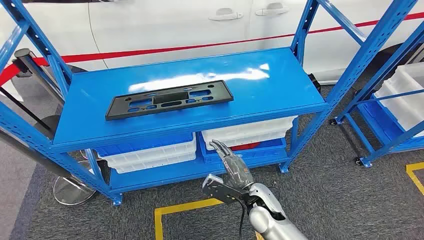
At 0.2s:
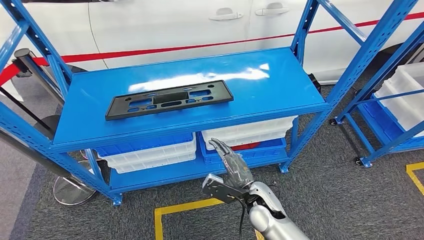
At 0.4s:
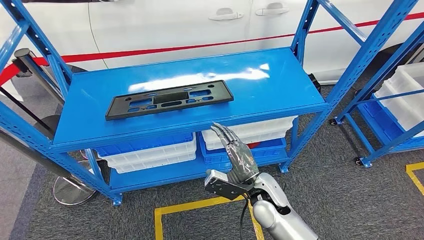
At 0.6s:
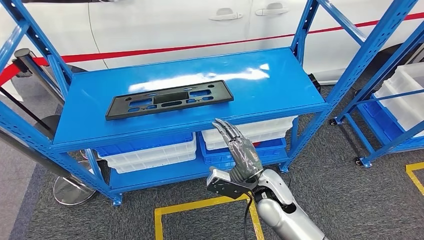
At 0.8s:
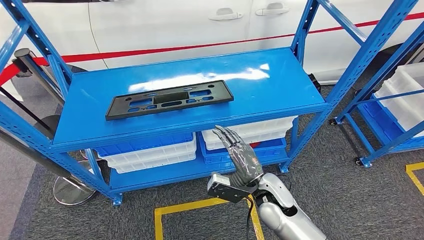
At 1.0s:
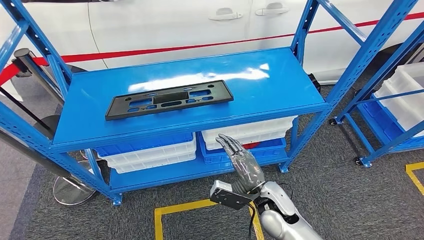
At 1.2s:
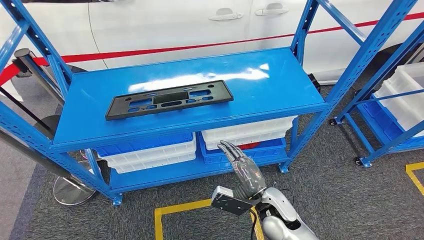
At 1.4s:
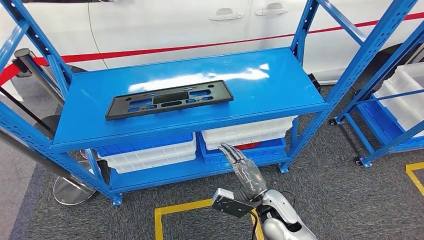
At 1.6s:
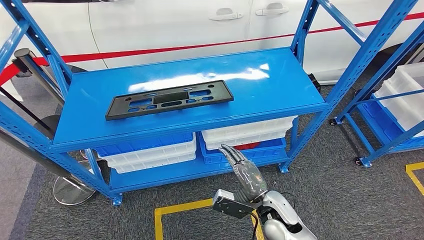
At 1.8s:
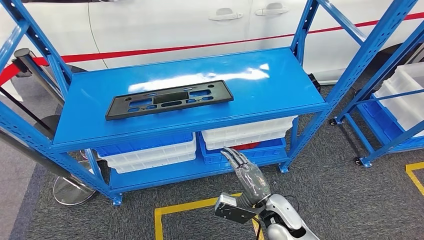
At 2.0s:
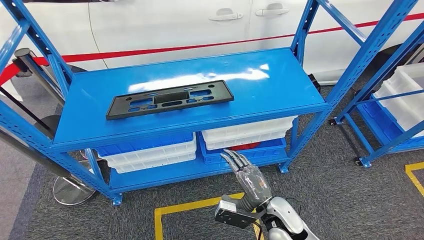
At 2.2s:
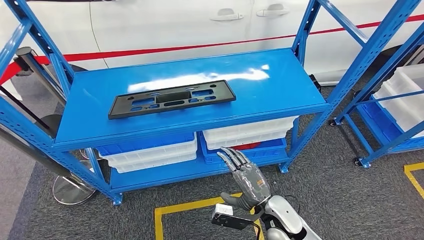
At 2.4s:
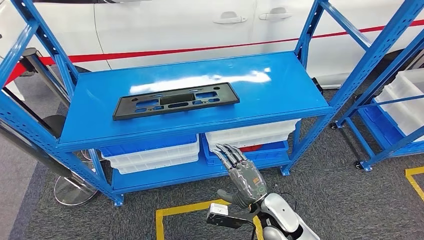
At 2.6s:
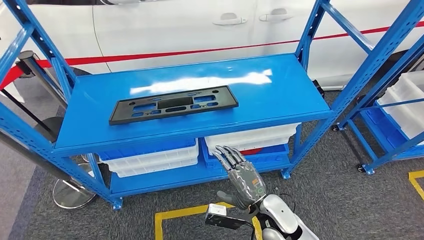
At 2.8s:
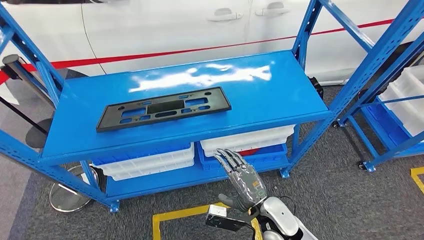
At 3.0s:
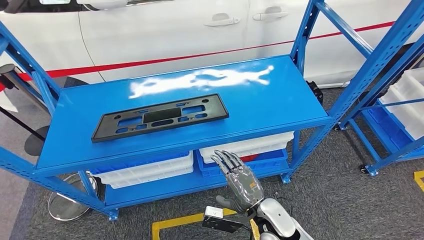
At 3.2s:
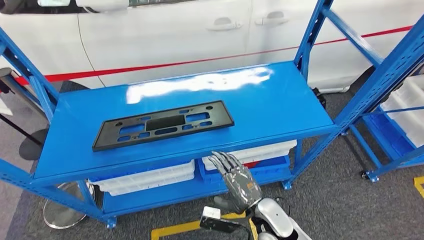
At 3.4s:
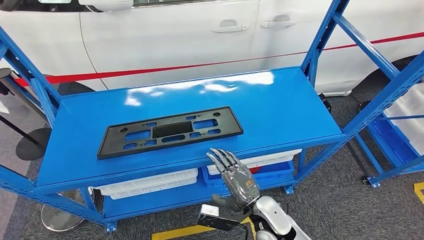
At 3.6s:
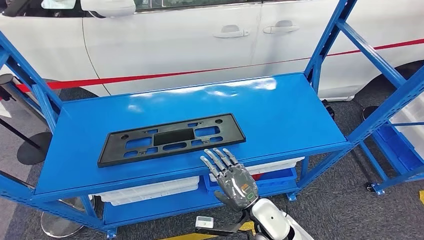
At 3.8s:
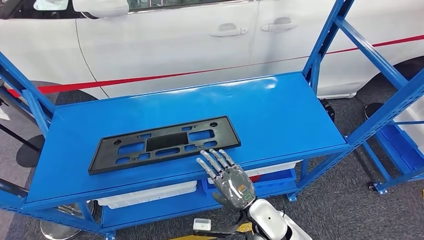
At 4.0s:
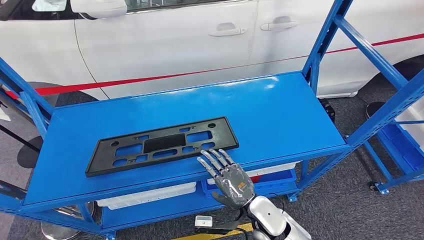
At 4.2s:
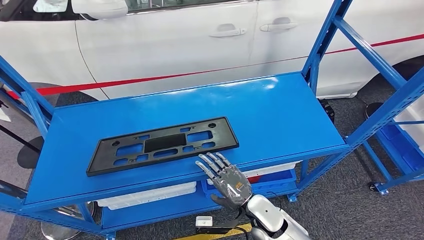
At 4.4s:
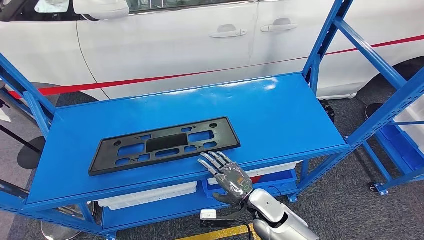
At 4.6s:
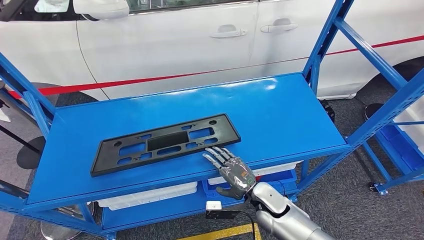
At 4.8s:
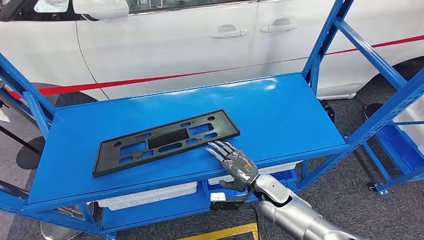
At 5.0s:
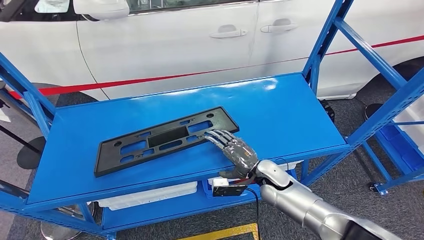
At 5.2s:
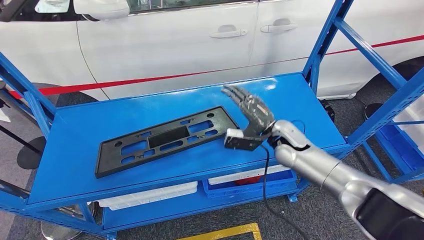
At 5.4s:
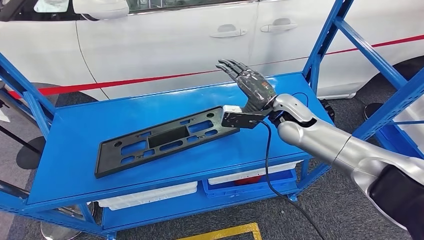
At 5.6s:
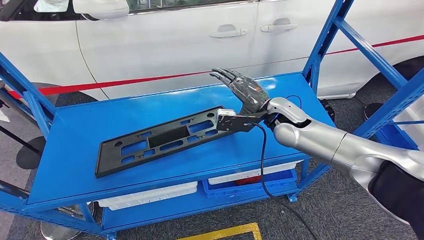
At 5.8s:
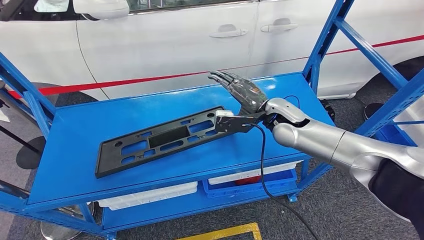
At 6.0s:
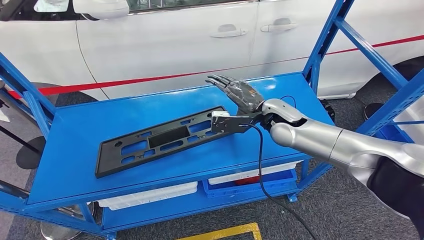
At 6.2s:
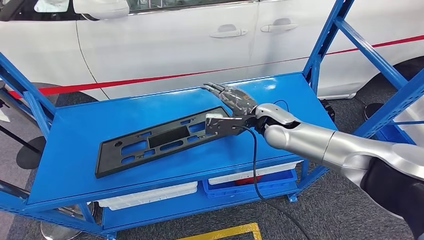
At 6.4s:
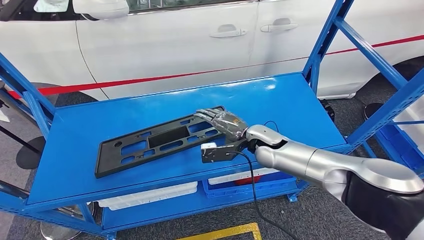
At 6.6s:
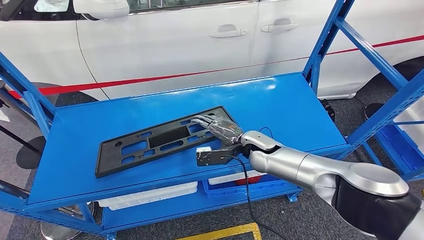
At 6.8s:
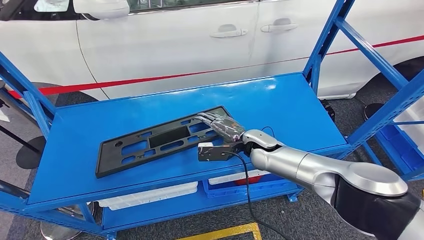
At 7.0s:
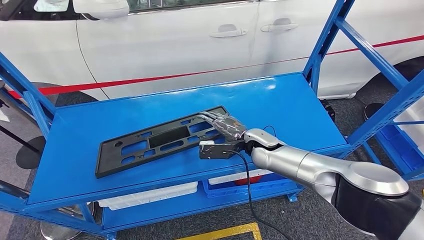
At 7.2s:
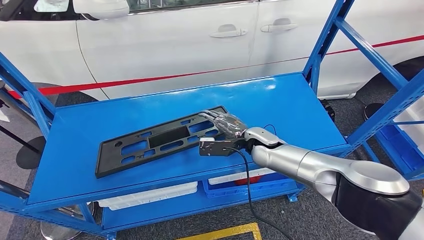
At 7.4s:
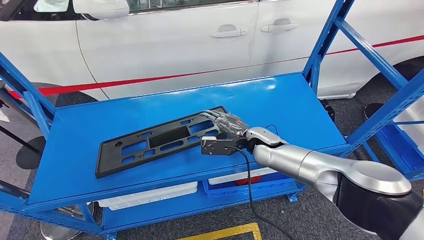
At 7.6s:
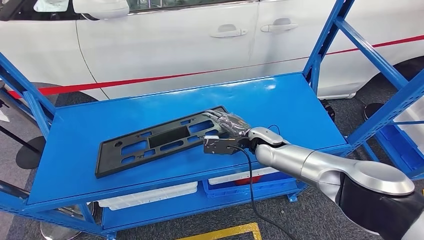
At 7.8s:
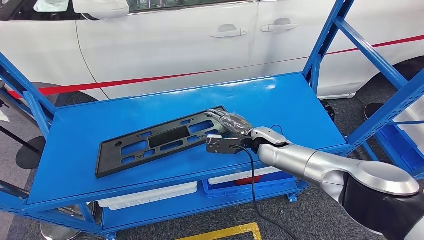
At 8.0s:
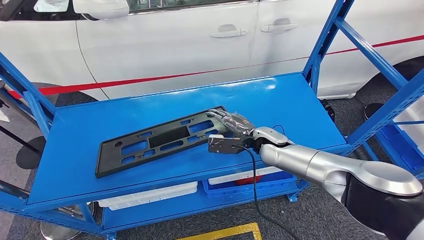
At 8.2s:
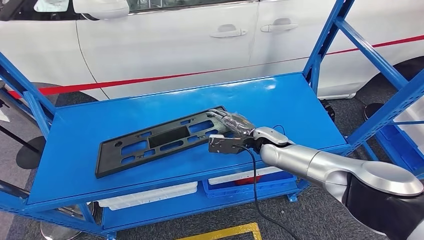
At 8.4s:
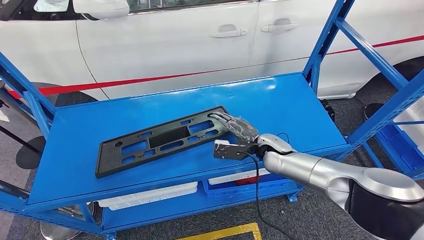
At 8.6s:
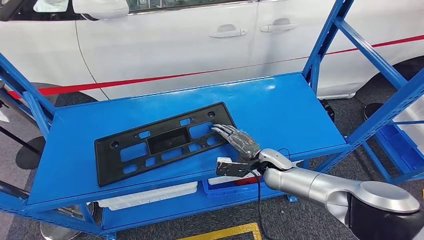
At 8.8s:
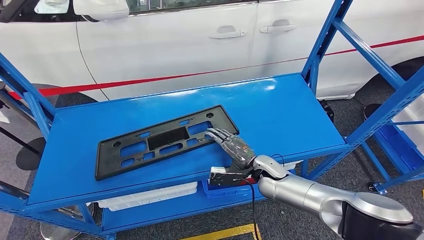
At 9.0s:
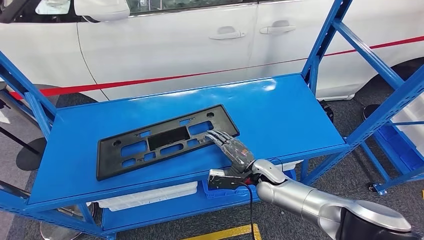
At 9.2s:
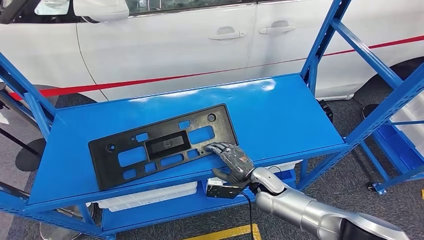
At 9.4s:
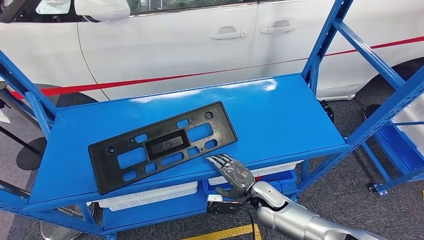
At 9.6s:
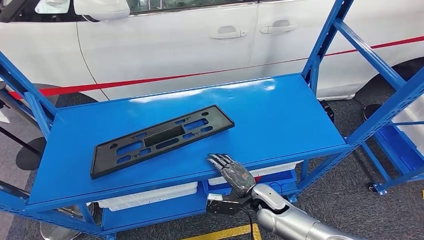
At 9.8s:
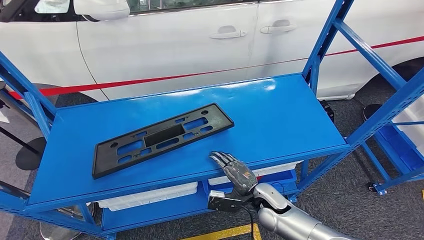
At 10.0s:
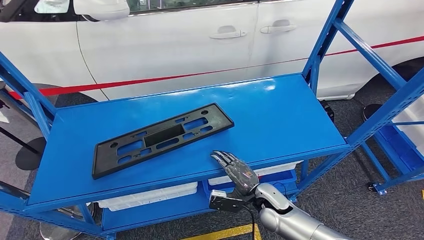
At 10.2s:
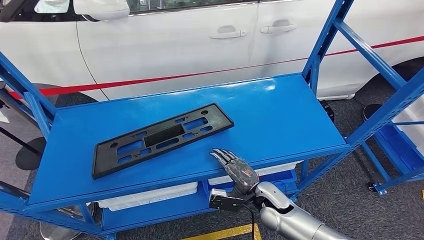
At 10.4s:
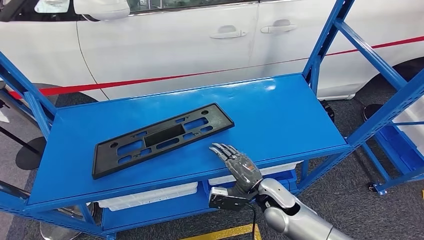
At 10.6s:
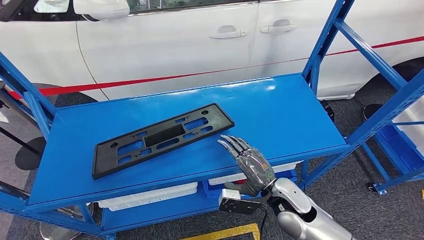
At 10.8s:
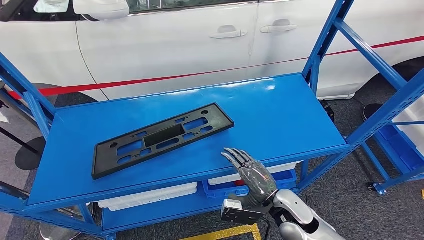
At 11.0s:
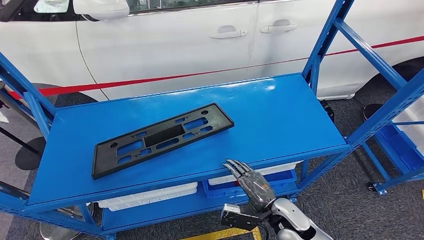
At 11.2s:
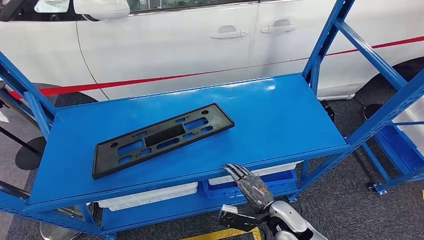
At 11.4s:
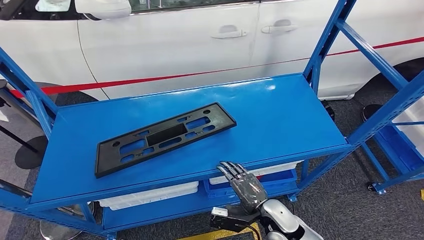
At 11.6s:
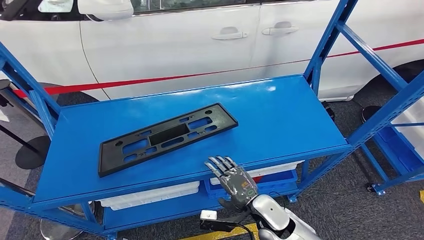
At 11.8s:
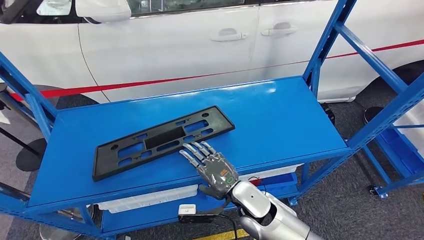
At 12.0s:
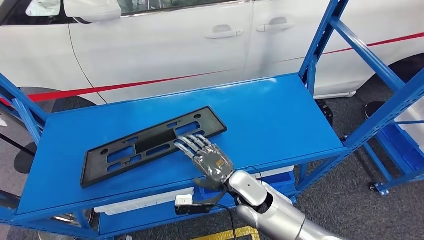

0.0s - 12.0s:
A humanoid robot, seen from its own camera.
4.4s - 6.0s: The right hand shifts about 25 cm upward and forward.
6.0s - 7.6s: The right hand is displaced downward by some 10 cm.
9.0s - 10.4s: The right hand goes roughly 5 cm backward.

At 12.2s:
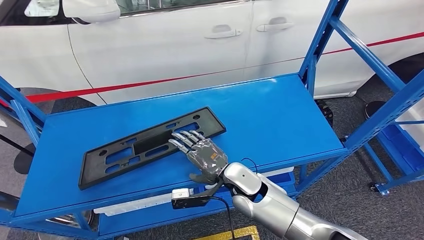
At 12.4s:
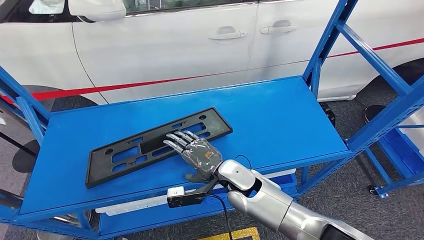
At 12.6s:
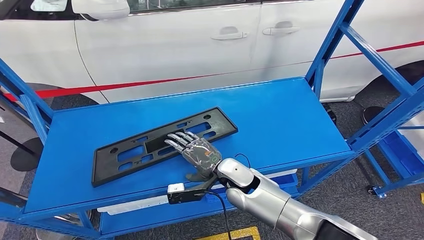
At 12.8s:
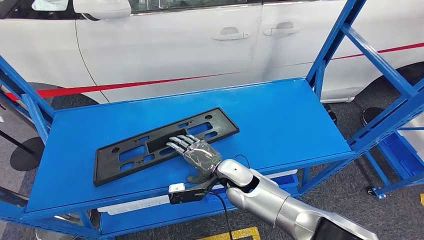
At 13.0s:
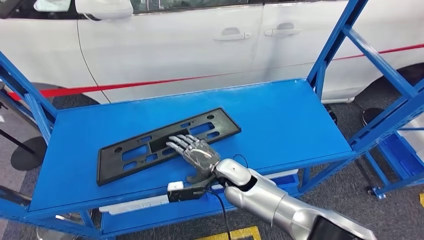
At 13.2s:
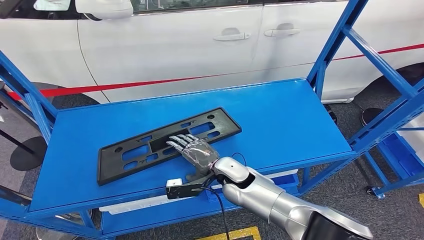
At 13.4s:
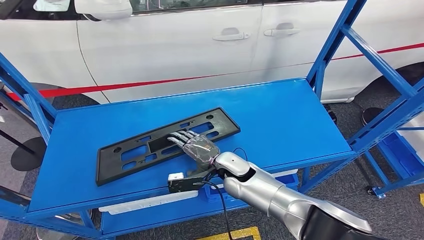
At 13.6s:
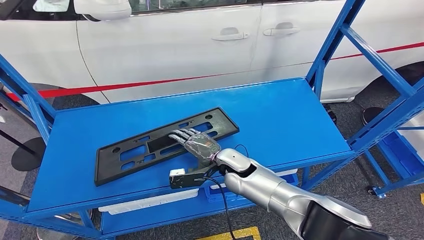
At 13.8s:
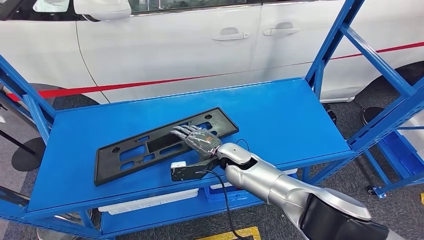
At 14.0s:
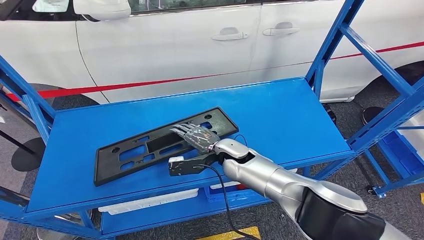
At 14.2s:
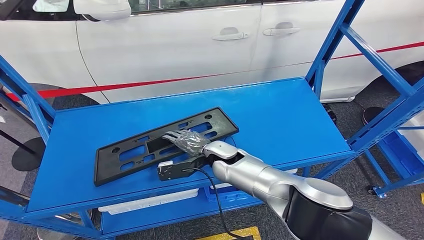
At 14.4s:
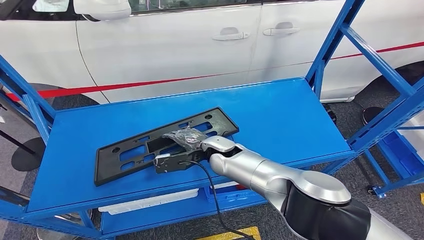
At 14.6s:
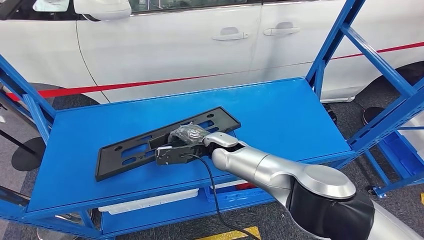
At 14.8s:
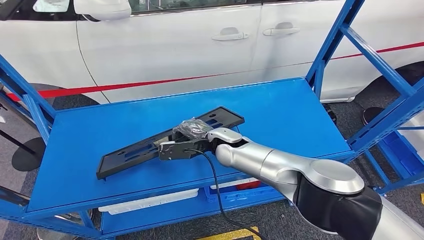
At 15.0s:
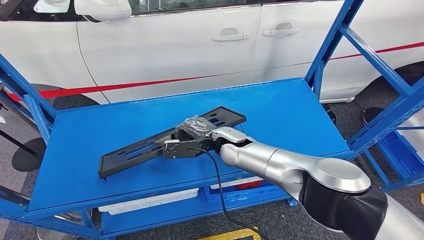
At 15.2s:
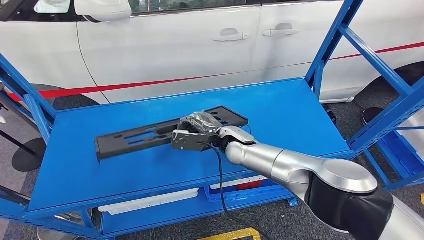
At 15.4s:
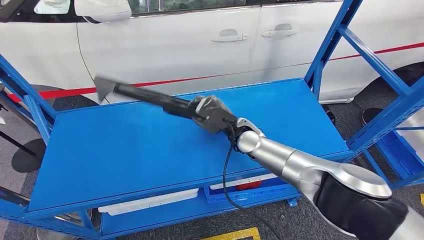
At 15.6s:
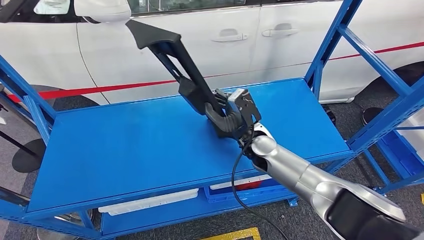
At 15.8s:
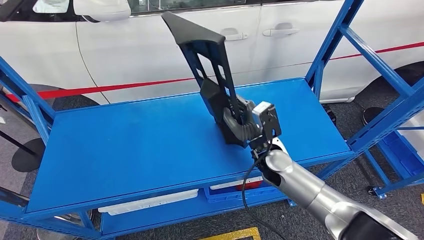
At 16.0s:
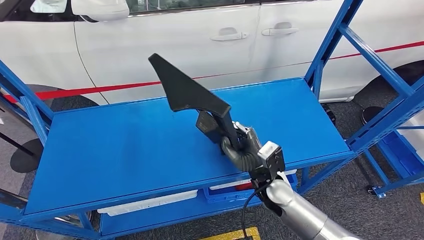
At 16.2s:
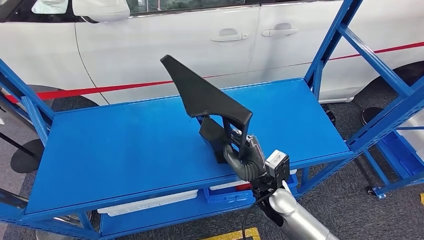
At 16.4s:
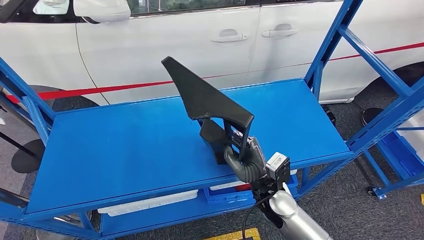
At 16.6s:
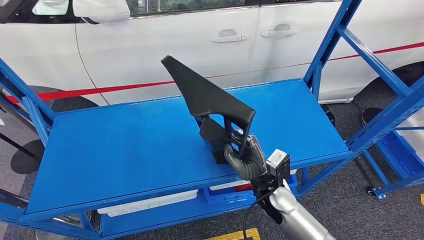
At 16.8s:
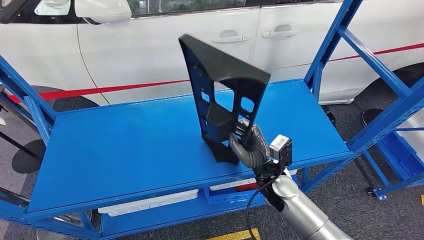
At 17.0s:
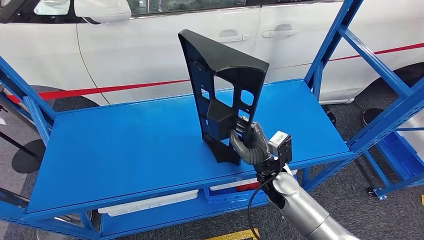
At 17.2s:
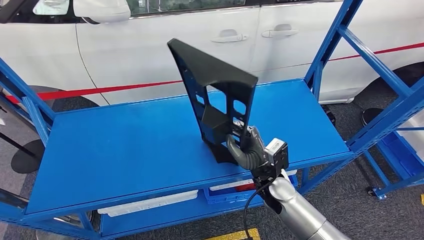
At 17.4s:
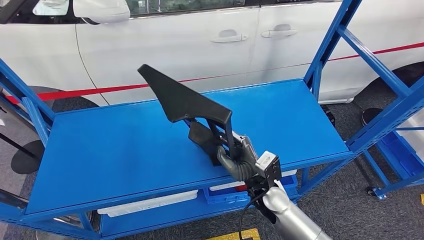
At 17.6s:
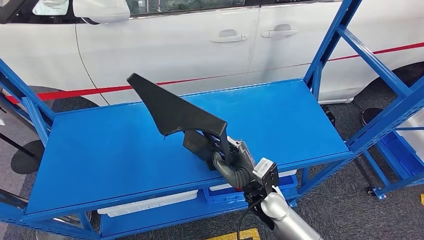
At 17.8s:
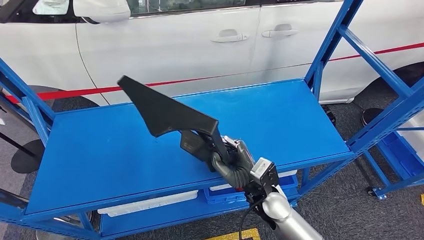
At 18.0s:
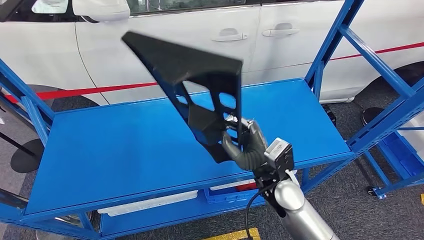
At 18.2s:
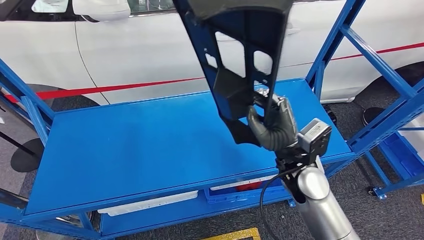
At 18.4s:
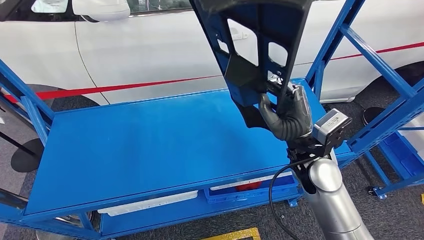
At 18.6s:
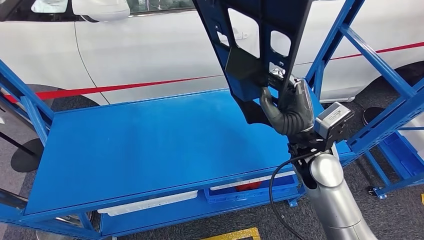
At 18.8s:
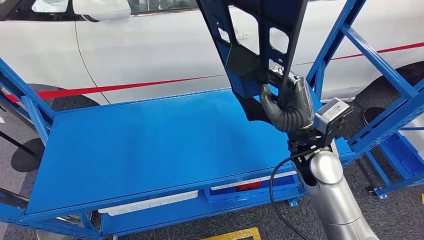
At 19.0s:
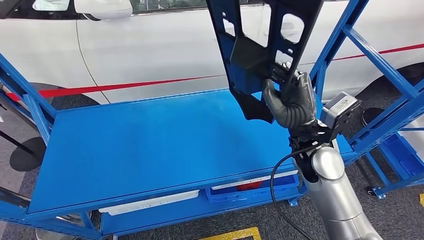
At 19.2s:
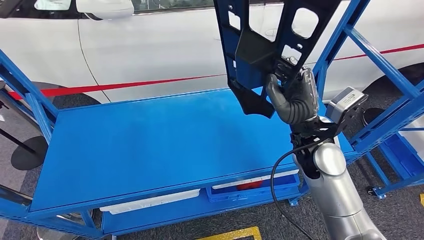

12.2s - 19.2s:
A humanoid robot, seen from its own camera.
Step, 12.2s - 15.4s: Pick up the large material from the shelf.
13.6s - 15.0s: The right hand is displaced upward by roughly 5 cm.
16.4s - 17.8s: The hands make only small movements.
